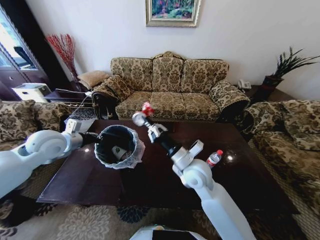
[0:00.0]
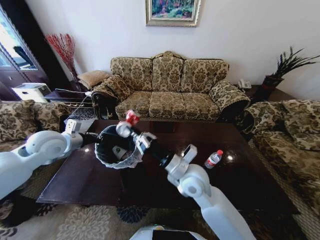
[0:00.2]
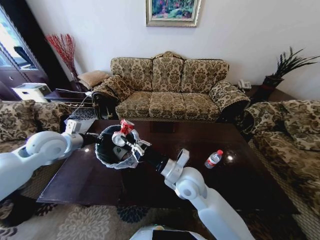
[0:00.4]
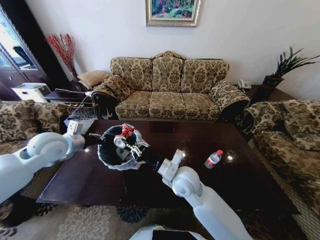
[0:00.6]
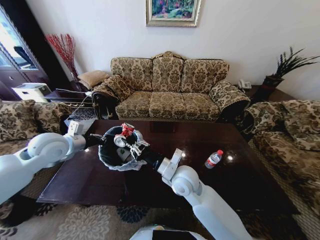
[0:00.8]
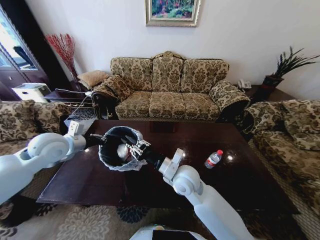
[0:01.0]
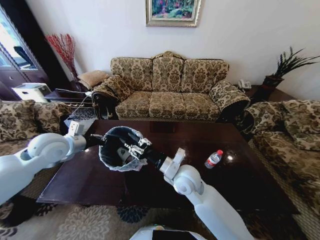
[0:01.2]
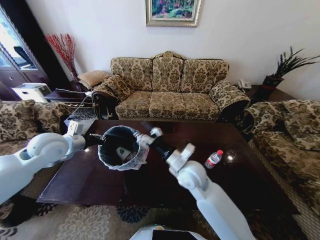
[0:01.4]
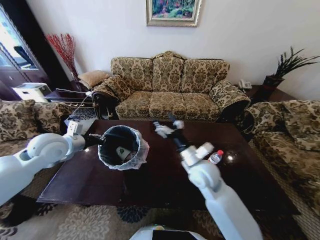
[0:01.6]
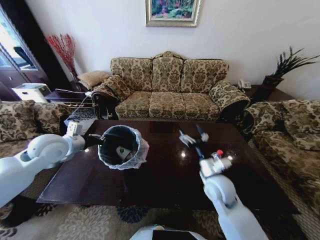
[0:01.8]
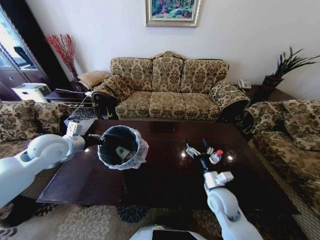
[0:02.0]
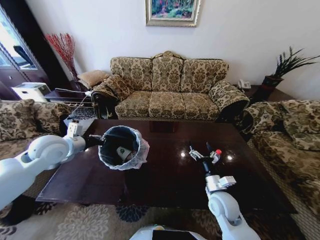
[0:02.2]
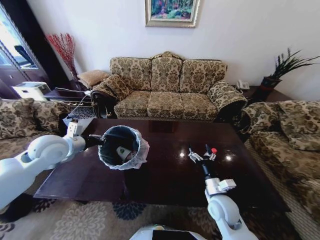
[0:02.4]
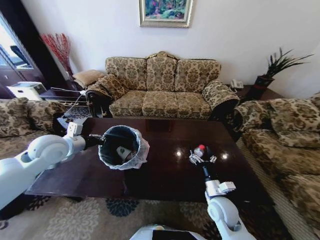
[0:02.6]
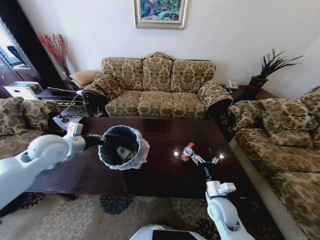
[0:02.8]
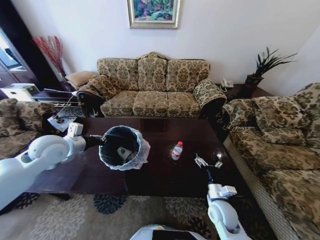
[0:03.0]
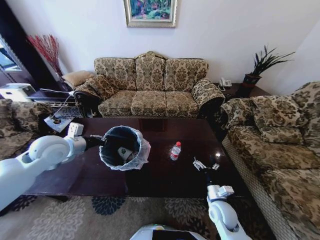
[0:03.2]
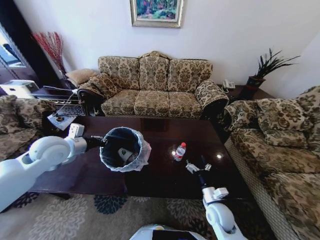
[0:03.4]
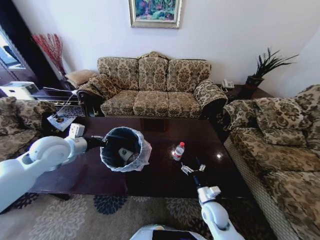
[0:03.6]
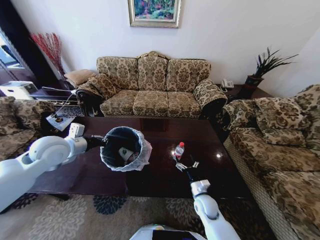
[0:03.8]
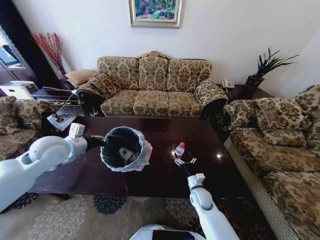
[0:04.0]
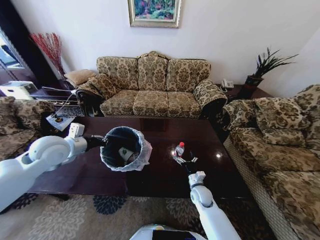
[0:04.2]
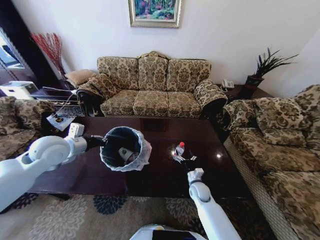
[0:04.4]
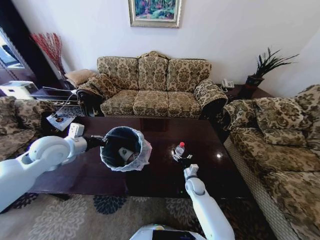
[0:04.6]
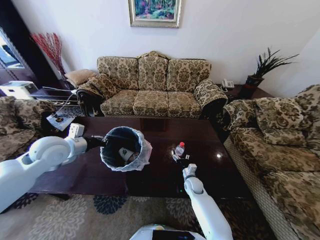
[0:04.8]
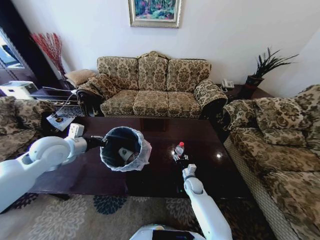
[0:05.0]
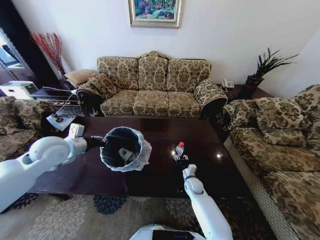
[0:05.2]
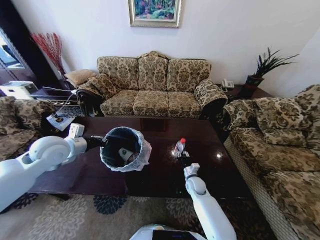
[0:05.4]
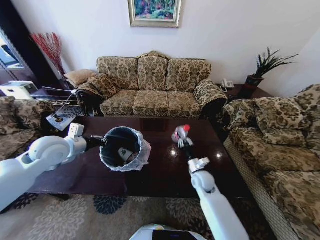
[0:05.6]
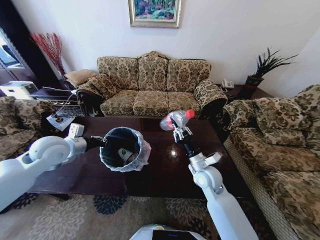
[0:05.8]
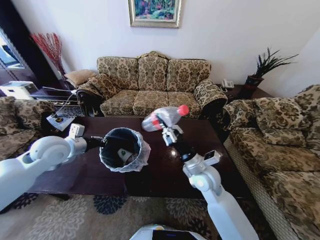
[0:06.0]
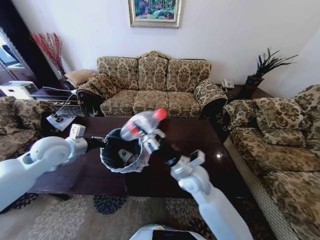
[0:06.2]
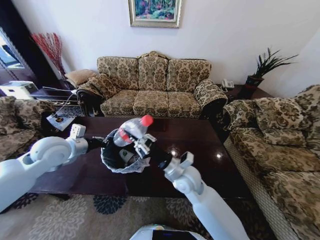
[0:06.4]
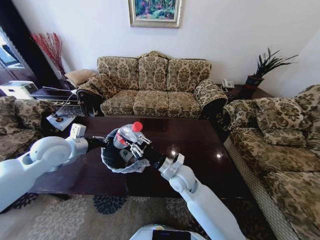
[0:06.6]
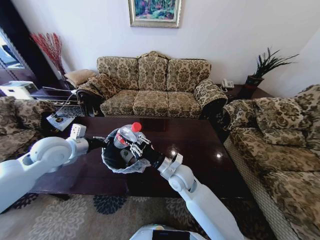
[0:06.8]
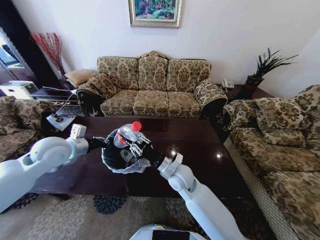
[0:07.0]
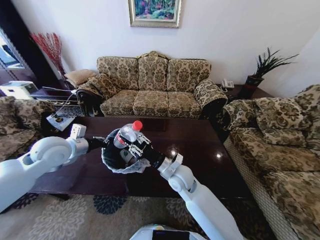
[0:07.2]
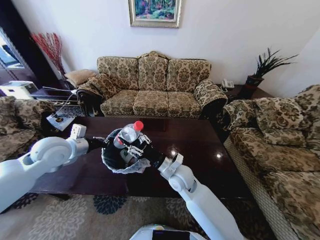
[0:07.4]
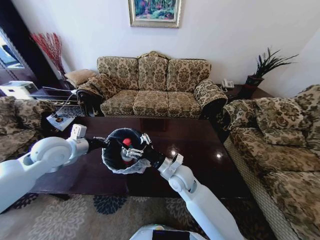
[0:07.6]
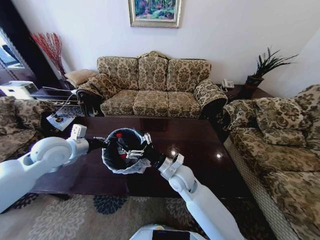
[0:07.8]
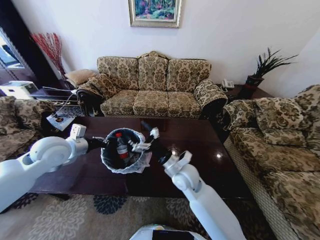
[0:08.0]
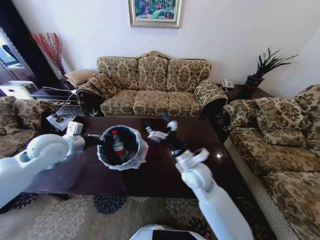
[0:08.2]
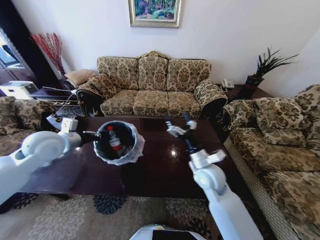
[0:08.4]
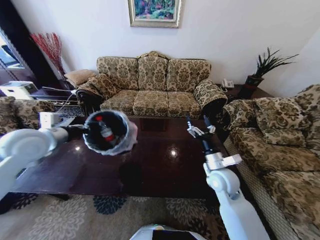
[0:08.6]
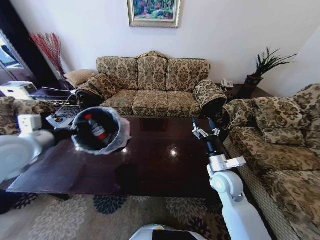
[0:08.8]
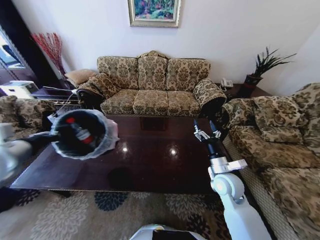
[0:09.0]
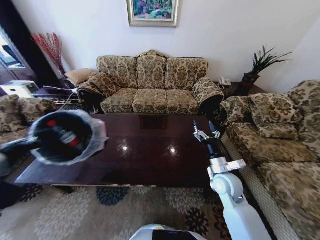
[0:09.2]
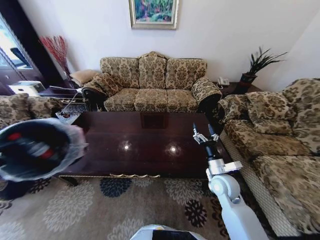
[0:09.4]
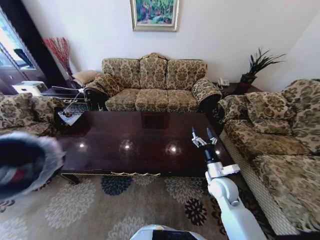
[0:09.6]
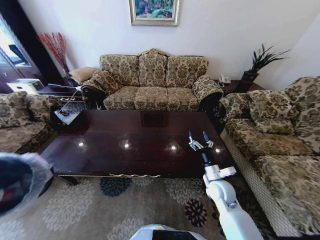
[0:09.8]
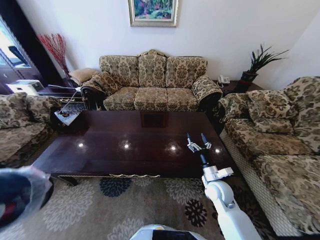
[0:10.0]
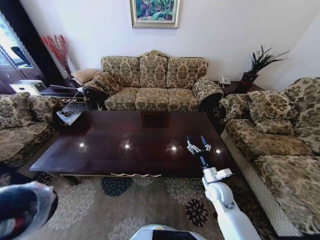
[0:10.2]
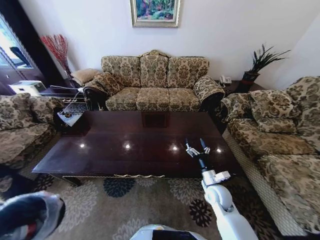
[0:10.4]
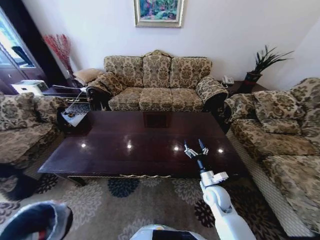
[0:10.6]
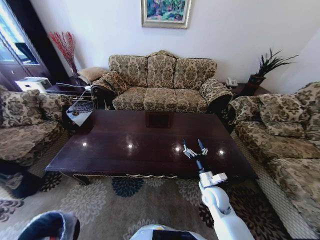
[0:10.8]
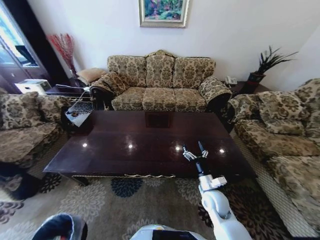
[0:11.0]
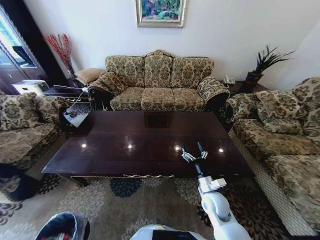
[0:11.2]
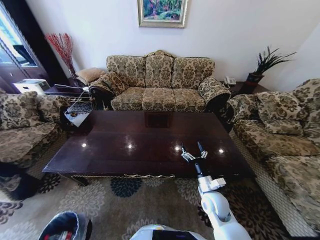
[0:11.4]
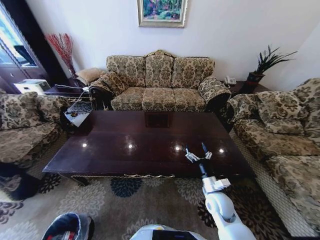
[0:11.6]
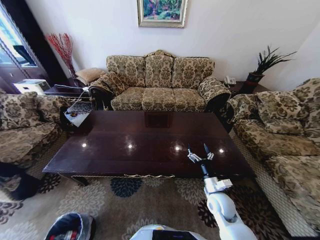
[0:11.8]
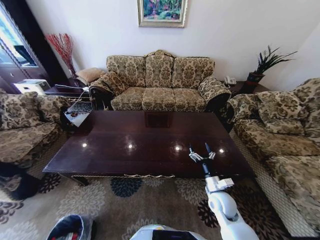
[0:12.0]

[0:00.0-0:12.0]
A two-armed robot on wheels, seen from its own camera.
Task of the whole recording: Move to the front of the table and place the trash on the table into the trash bin.
0:00.0 to 0:01.6: The right gripper opens its fingers.
0:01.6 to 0:03.0: The right gripper goes roughly 20 cm downward, backward and to the right.
0:03.0 to 0:04.4: The right gripper moves forward and downward, roughly 15 cm.
0:04.4 to 0:06.0: The right gripper heads upward, covering about 20 cm, and closes its fingers.
0:06.0 to 0:07.6: The right gripper goes about 10 cm to the left, and opens its fingers.
0:07.6 to 0:09.0: The right gripper moves to the right, roughly 20 cm; the left gripper goes about 15 cm backward, to the left and upward.
0:09.0 to 0:10.4: The left gripper heads downward and backward, covering roughly 35 cm; the right gripper is displaced downward by approximately 10 cm.
0:10.4 to 0:12.0: The left gripper is displaced downward by some 30 cm.

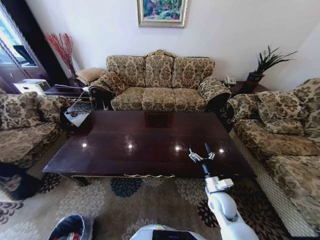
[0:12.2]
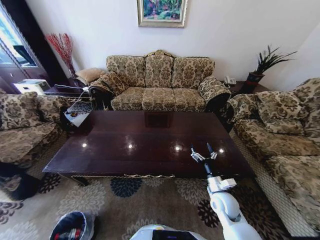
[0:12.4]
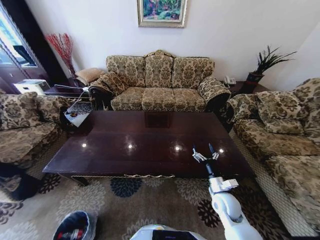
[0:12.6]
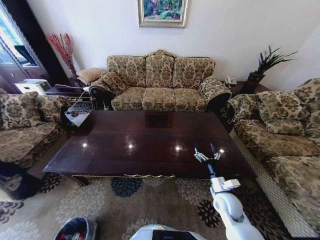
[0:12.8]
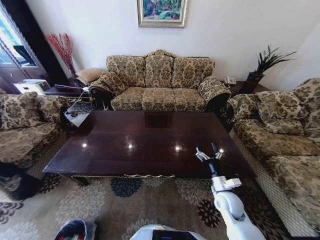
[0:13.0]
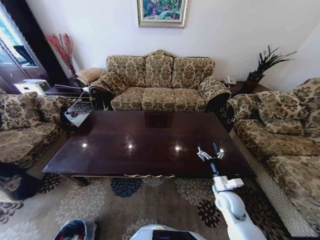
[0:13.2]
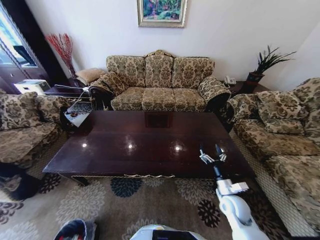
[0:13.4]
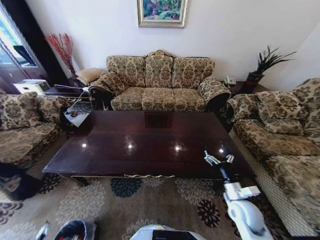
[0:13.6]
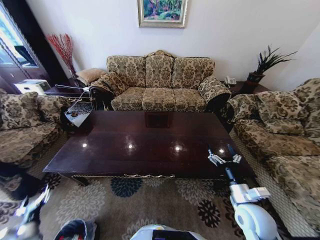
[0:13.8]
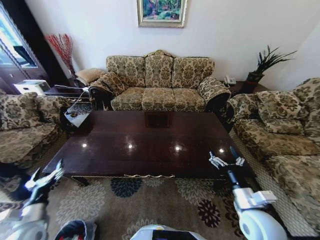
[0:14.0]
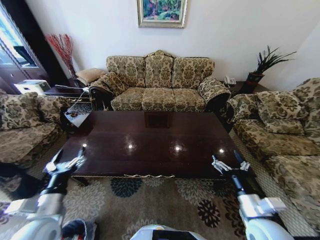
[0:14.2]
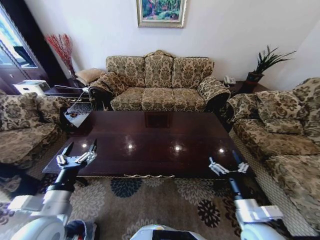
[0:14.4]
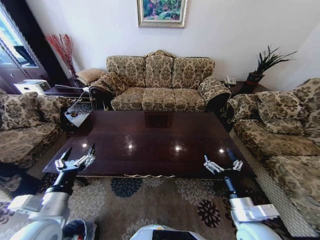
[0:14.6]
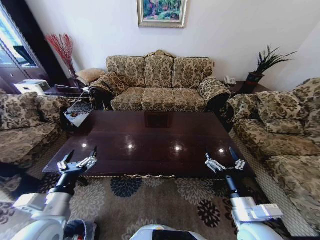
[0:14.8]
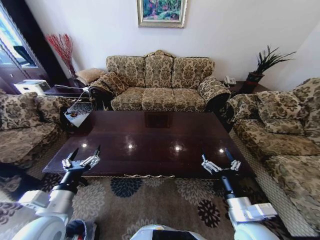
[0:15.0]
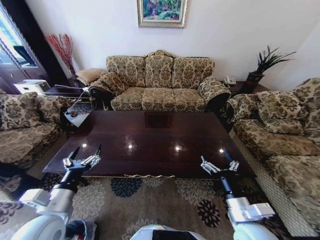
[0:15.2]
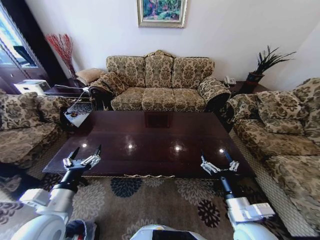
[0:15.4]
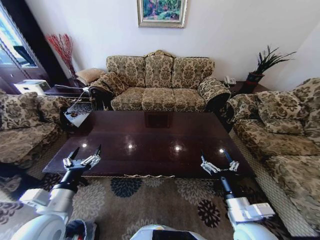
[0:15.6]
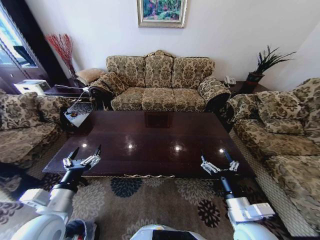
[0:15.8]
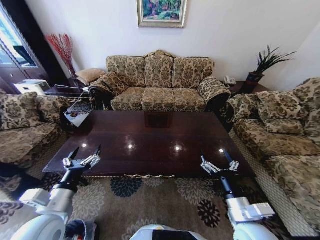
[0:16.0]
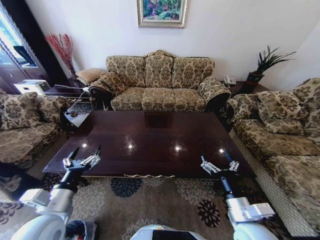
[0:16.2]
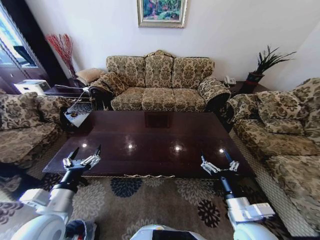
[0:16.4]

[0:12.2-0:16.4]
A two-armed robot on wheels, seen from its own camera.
Task of the whole recording: Move to the front of the table and place the trash on the table into the trash bin.
0:12.2 to 0:13.6: The left gripper goes approximately 5 cm upward, and opens; the right gripper shifts some 5 cm to the right.
0:13.6 to 0:15.0: The left gripper is displaced upward and to the right by approximately 40 cm, while the right gripper travels upward, backward and to the left by some 15 cm.
0:15.0 to 0:16.4: The two grippers keep their place.
